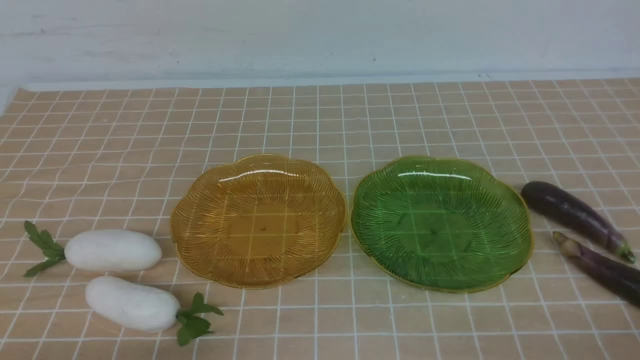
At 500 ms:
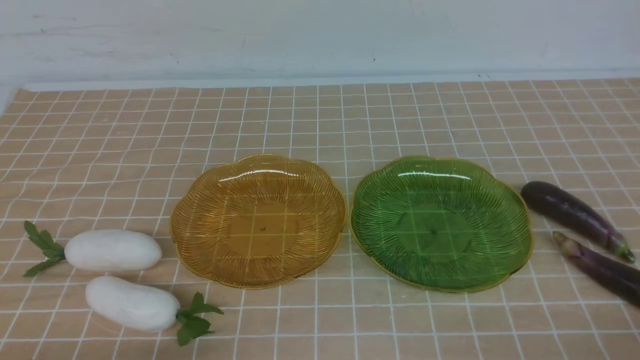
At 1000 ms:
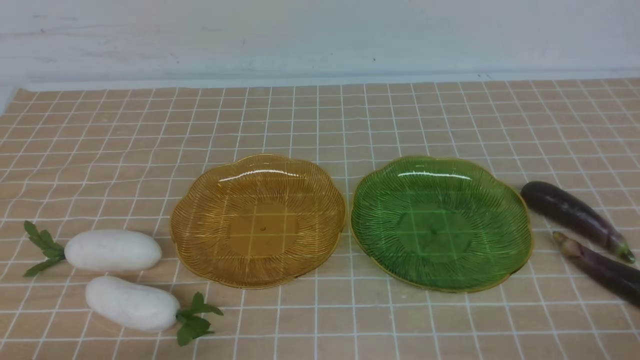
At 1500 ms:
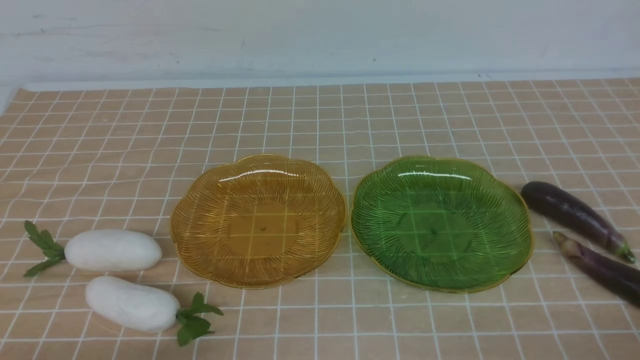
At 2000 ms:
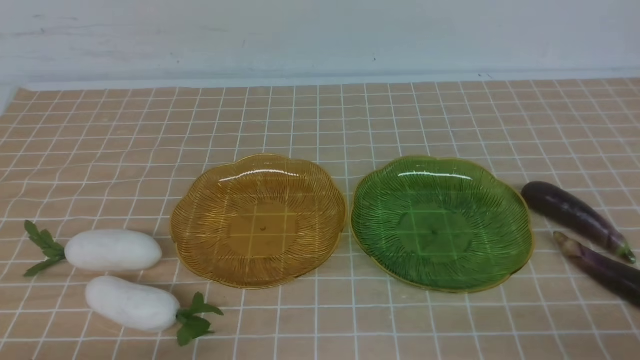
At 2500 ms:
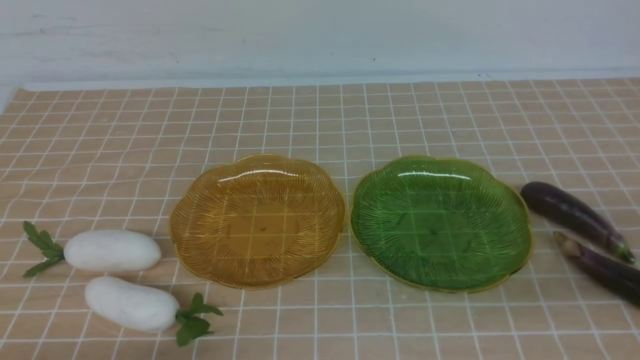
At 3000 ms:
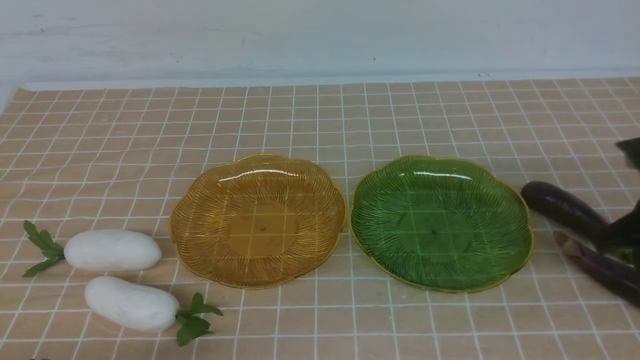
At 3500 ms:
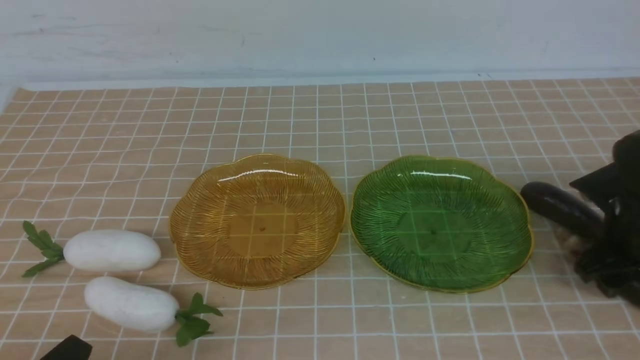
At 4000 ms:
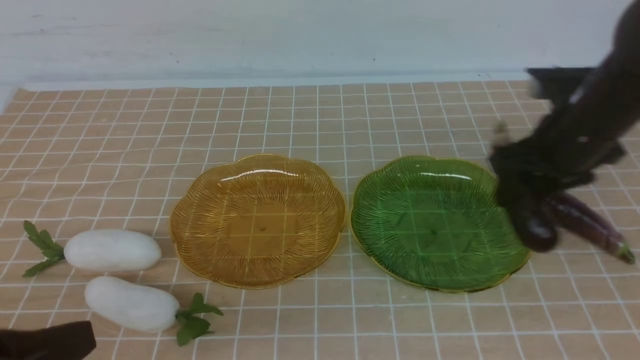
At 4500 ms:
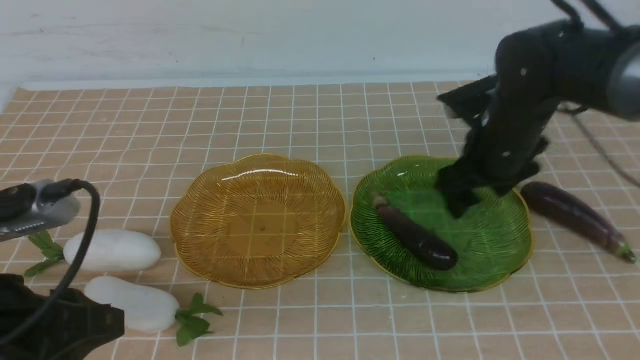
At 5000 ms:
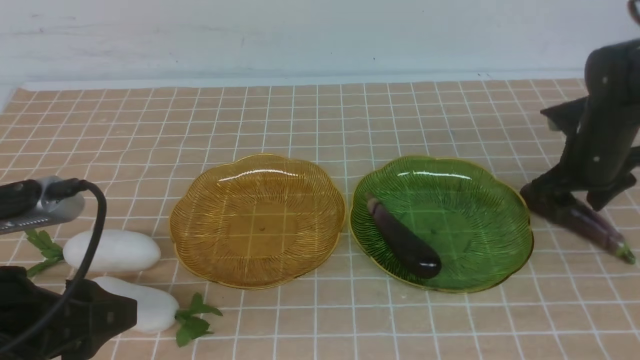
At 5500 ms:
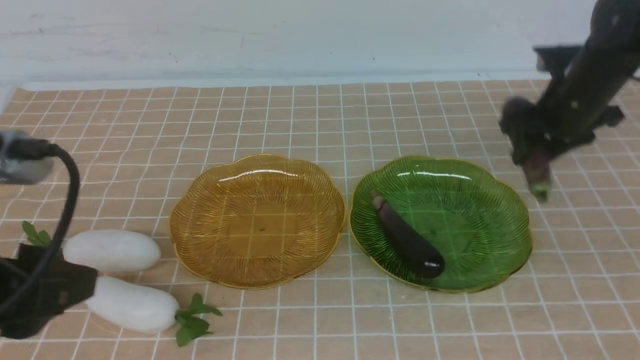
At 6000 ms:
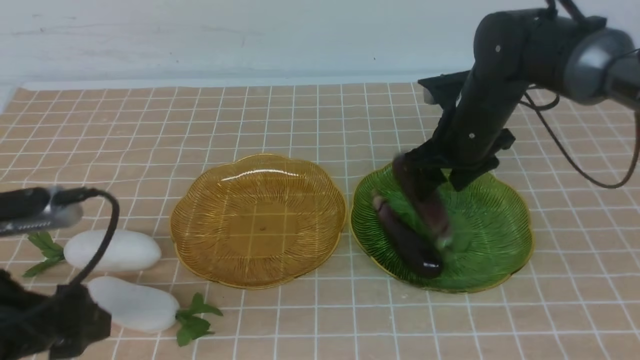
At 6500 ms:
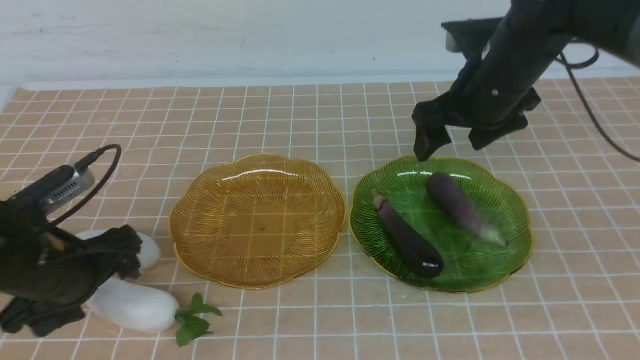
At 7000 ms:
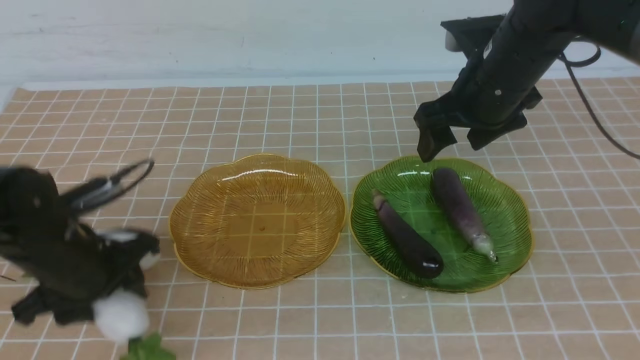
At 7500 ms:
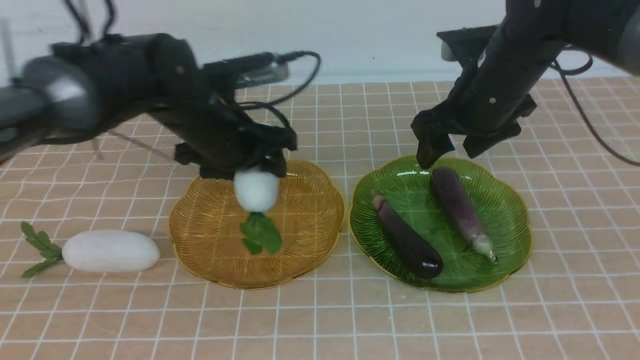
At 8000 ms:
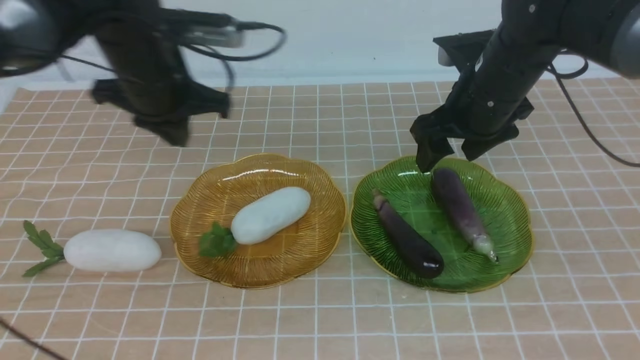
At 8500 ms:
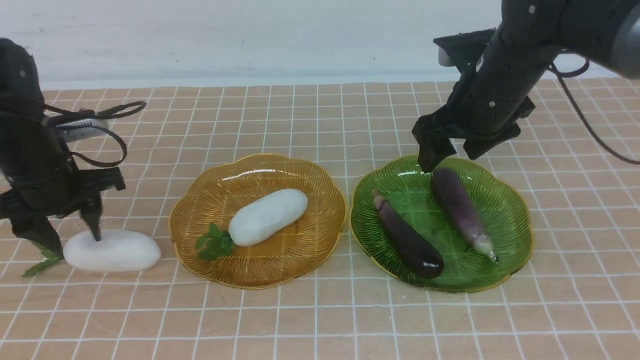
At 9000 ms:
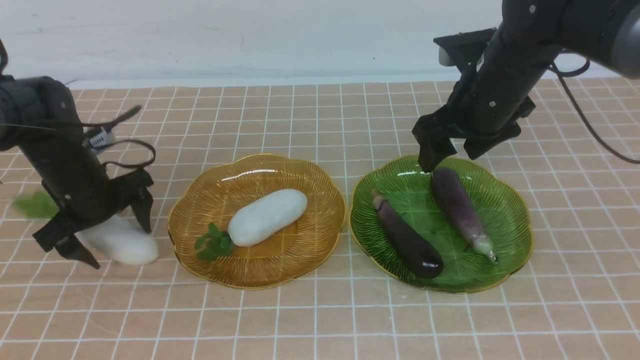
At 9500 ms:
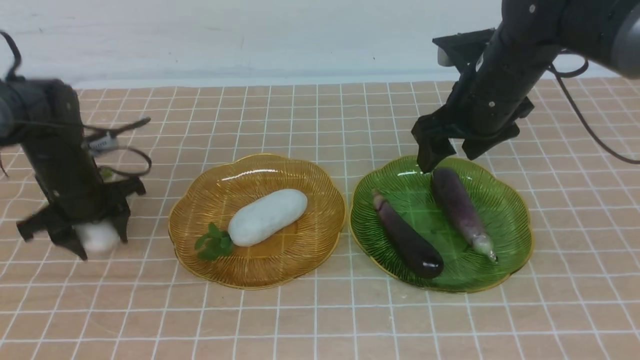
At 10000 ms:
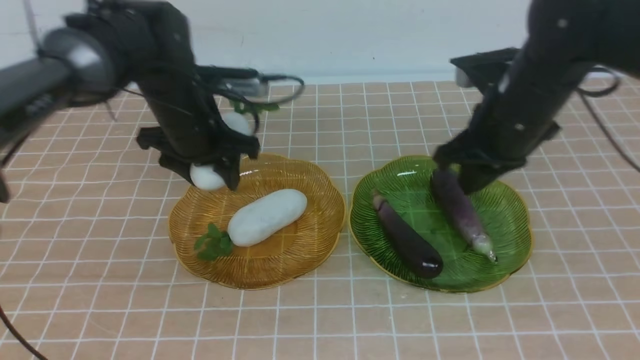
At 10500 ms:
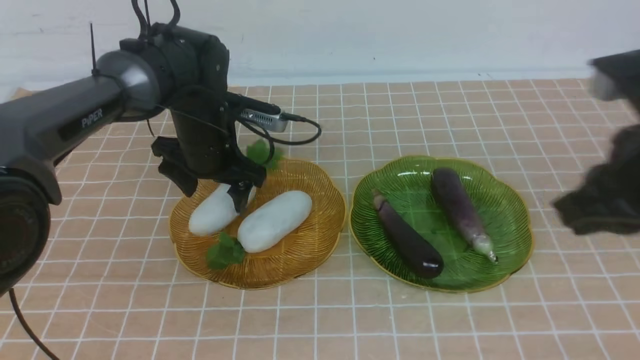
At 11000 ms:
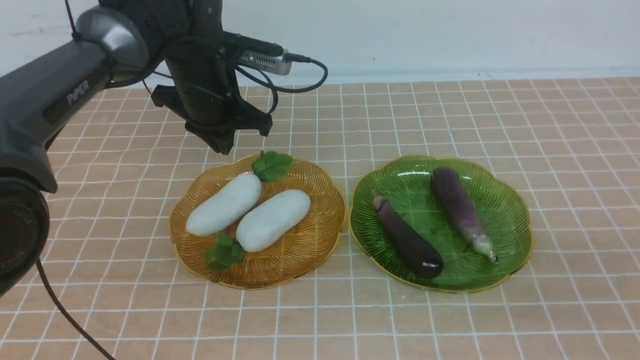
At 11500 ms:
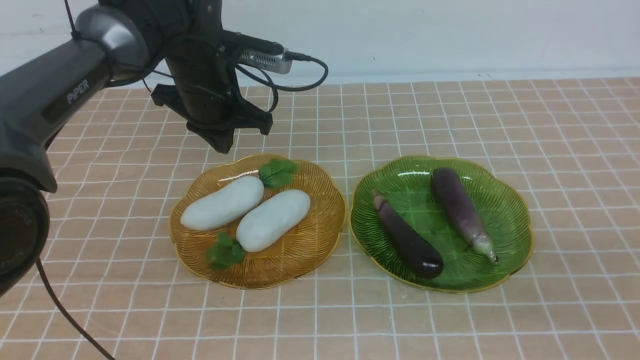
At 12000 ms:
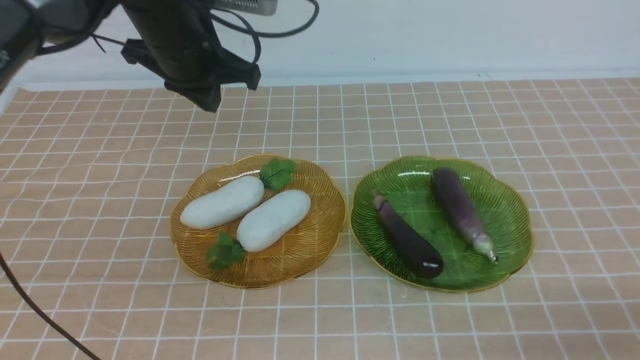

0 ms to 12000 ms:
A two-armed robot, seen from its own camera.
Step, 0 ms to 6000 ms: use the right arm to grab an eggplant and put it into the right plate.
Step, 6500 ms to 10500 ms: use the left arm to grab a radish and put it into the left plate.
2000 ms to 4000 ms: The left gripper moves upward, approximately 15 cm, while the right gripper travels forward by about 30 cm, and opens up.
4000 ms to 6000 ms: Both grippers move forward, roughly 5 cm. The right gripper moves about 10 cm to the right and comes back; the left gripper opens its fingers.
6000 ms to 8000 ms: The left gripper shifts some 20 cm forward, and closes its fingers.
8000 ms to 10000 ms: The right gripper moves backward, some 5 cm, and closes its fingers; the left gripper travels to the right and forward by about 10 cm, and opens its fingers.
10000 ms to 12000 ms: The right gripper heads backward, to the right and downward, covering some 35 cm; the left gripper travels upward and backward by roughly 20 cm, and closes up.

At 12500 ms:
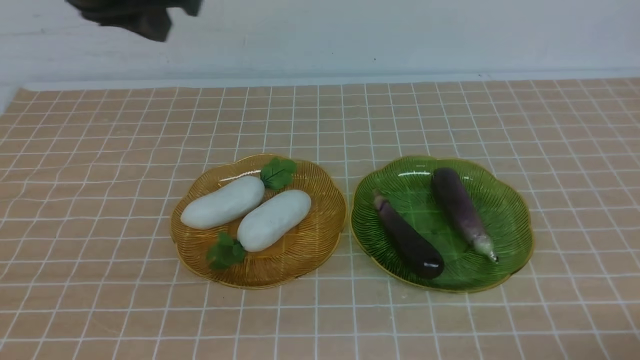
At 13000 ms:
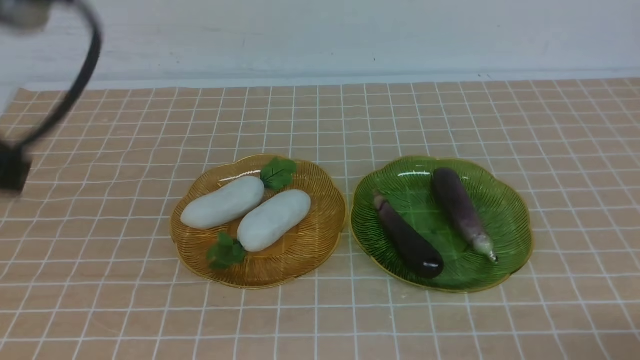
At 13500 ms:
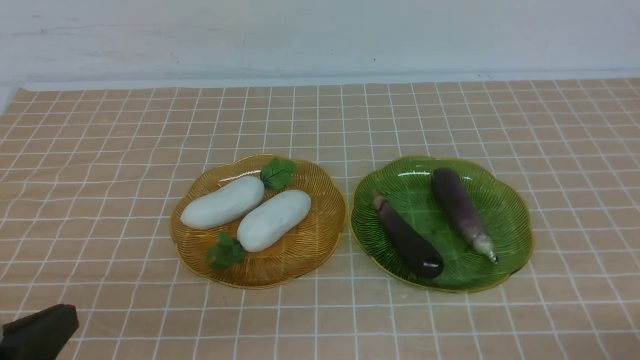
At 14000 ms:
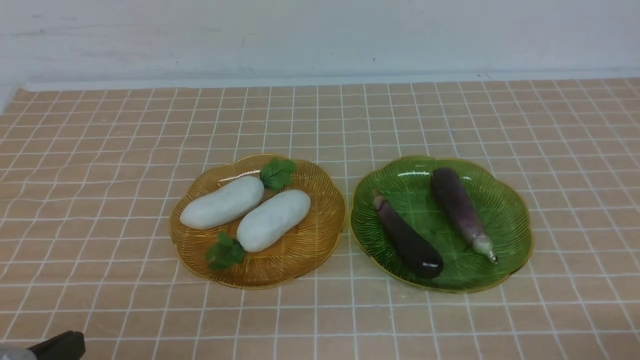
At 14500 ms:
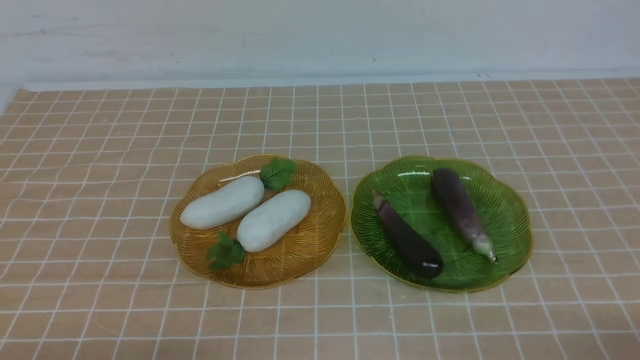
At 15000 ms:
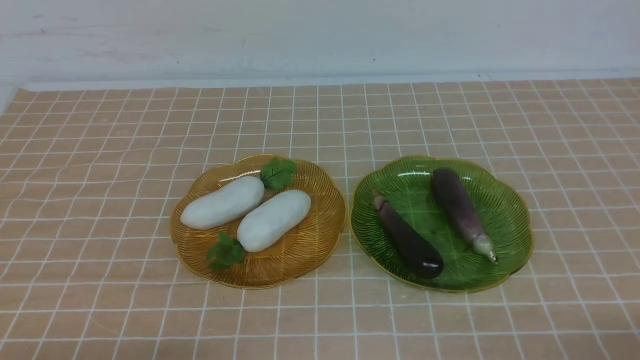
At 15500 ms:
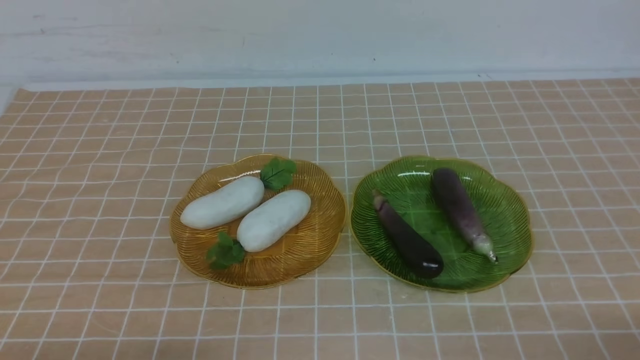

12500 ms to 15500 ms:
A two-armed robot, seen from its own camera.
12500 ms to 14000 ms: The left gripper is displaced downward and backward by about 25 cm.

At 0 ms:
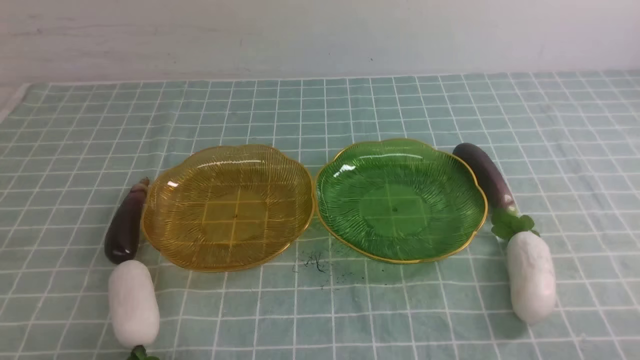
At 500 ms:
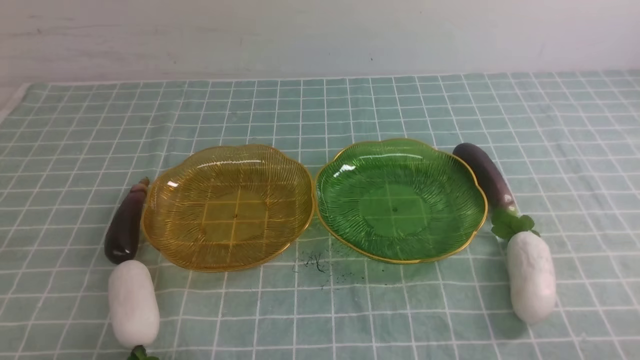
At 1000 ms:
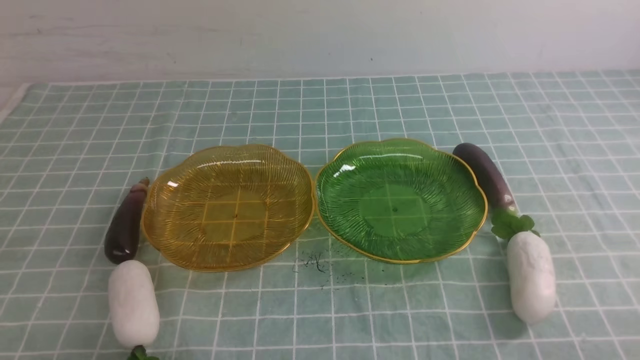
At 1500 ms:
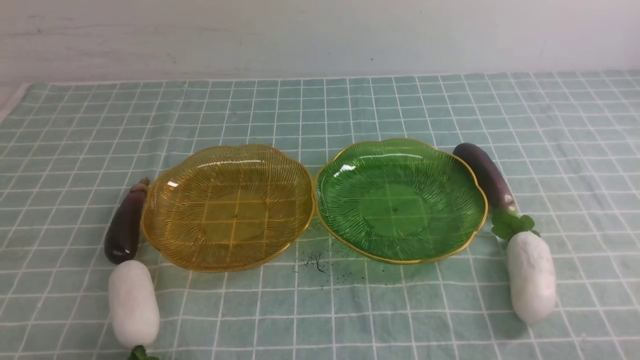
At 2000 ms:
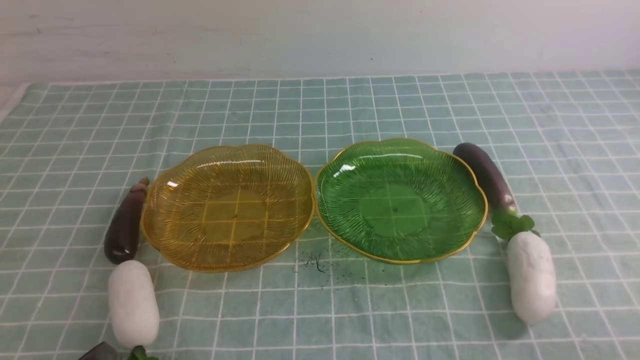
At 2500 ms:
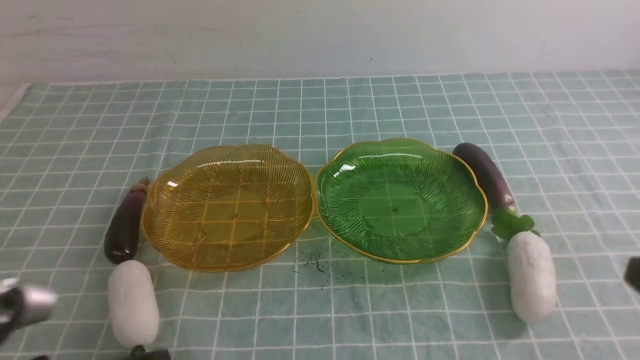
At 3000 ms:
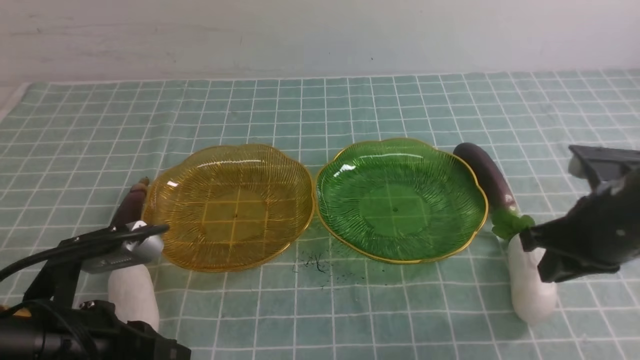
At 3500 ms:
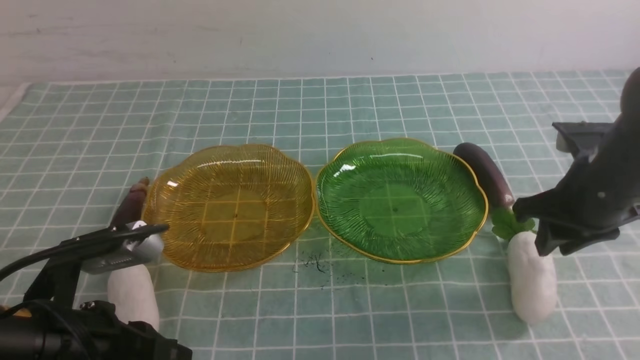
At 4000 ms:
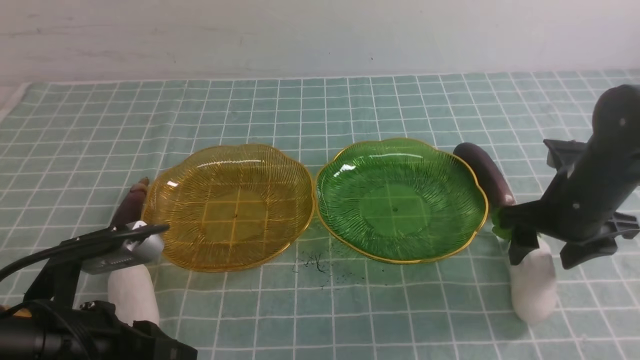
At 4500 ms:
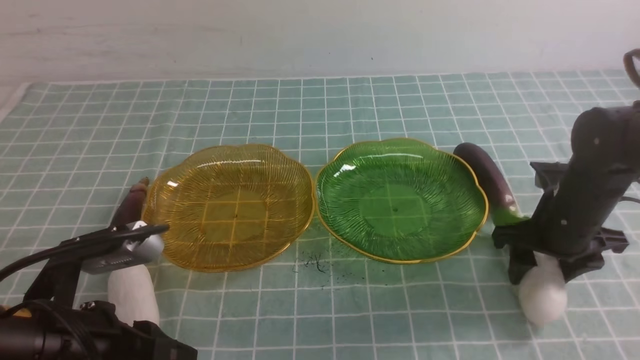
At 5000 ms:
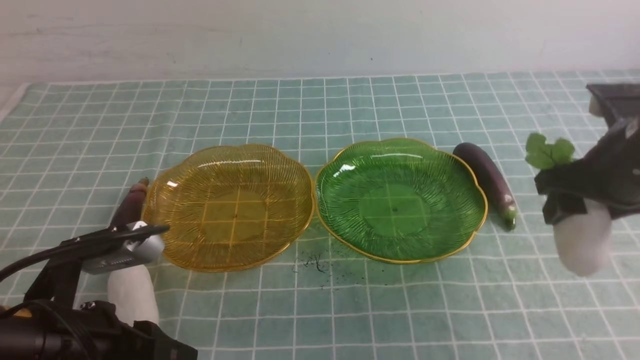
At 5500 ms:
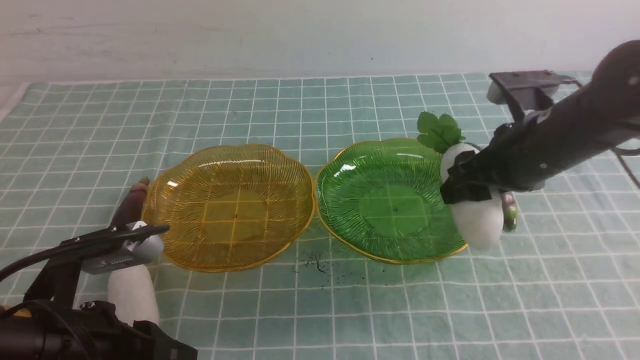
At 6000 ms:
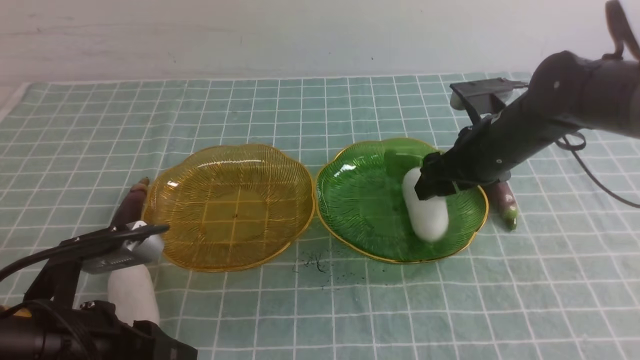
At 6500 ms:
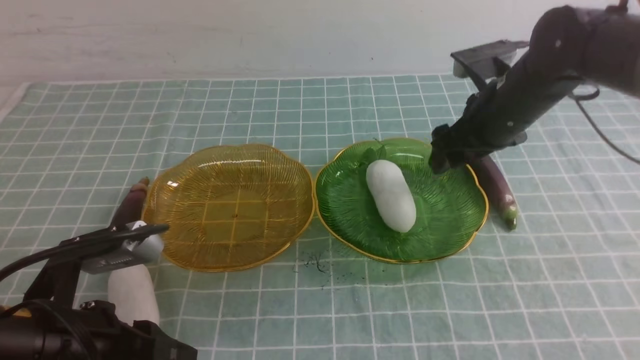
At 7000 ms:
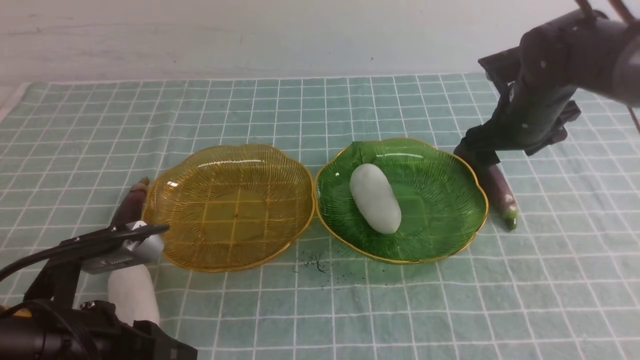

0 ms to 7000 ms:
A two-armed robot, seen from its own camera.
Step, 0 ms to 6000 ms: use the right arm to grab a radish and put it into the right plate.
2000 ms to 3500 ms: The right gripper is displaced forward by approximately 25 cm, and opens its fingers; the left gripper heads forward, covering some 10 cm.
3500 ms to 5000 ms: The grippers stay close to where they were, moving slightly.
5000 ms to 7000 ms: The right gripper moves forward, some 15 cm.
